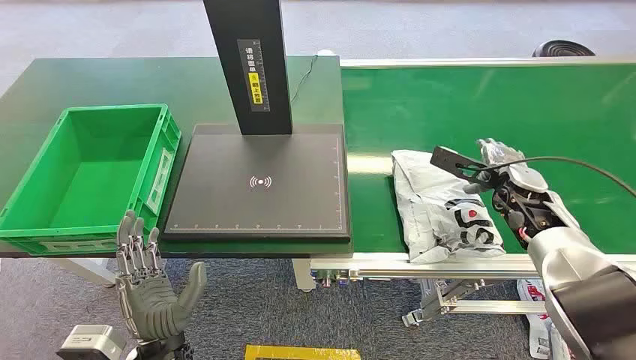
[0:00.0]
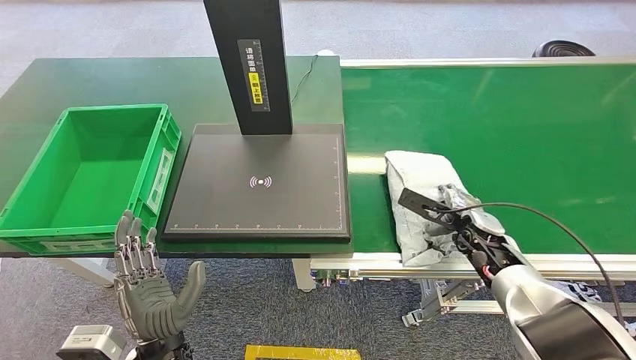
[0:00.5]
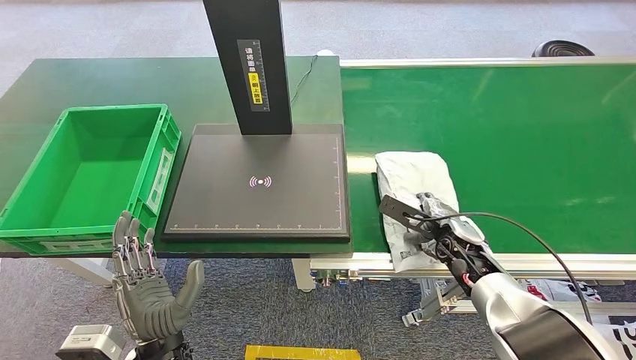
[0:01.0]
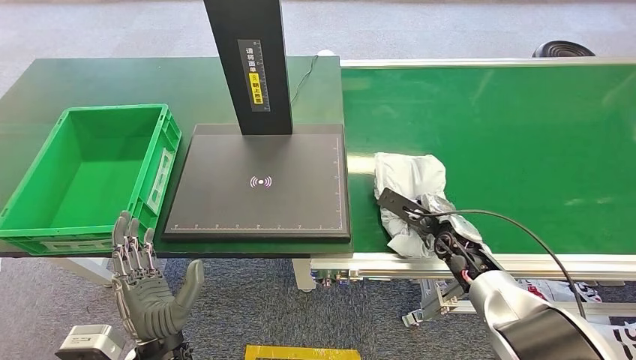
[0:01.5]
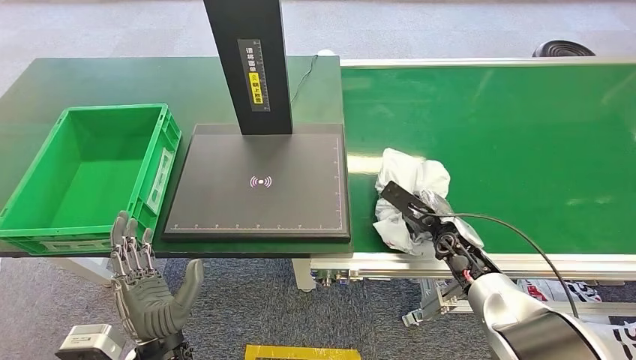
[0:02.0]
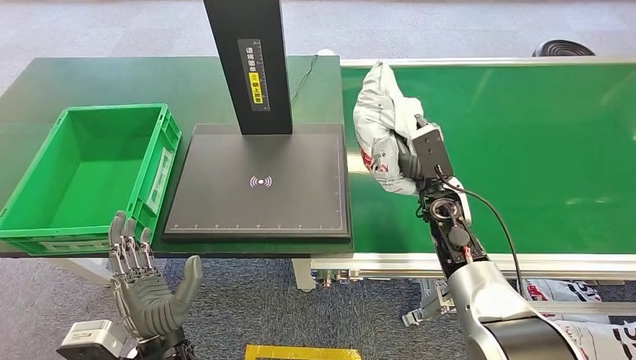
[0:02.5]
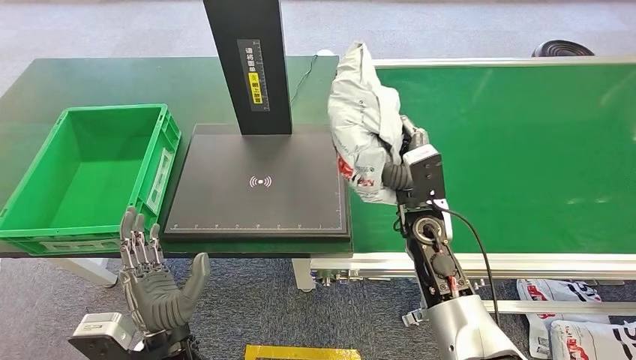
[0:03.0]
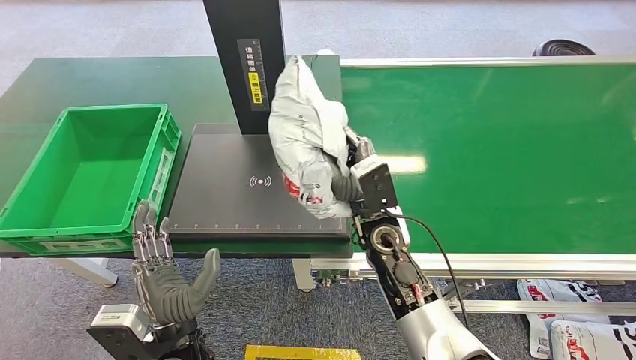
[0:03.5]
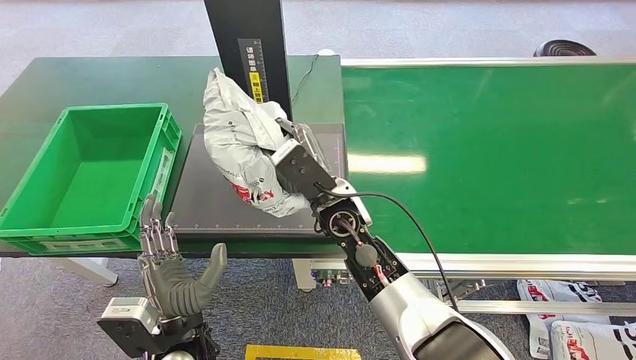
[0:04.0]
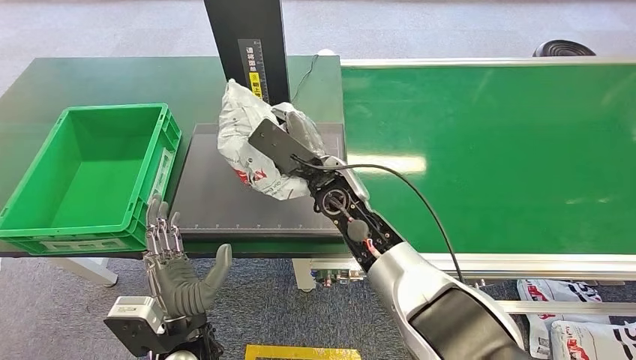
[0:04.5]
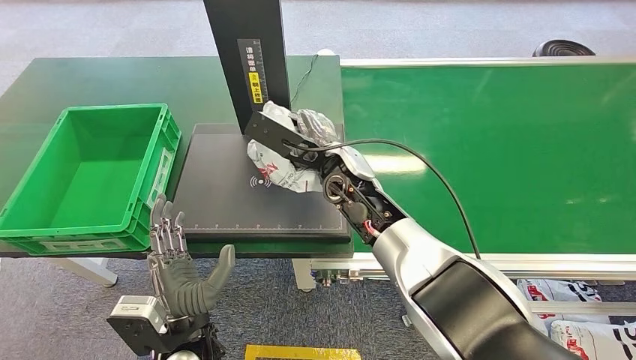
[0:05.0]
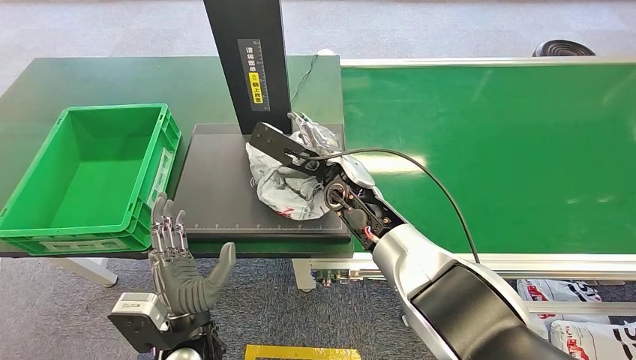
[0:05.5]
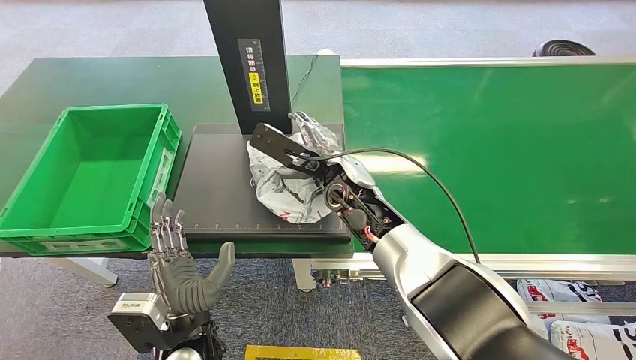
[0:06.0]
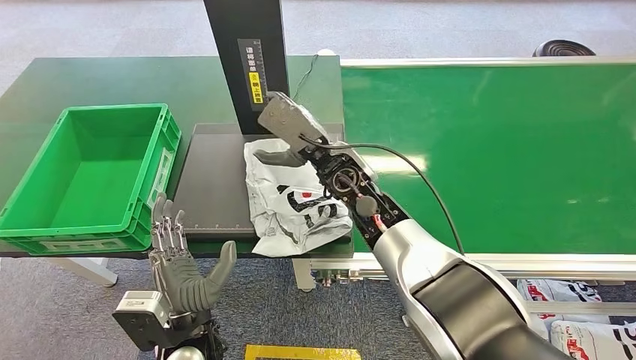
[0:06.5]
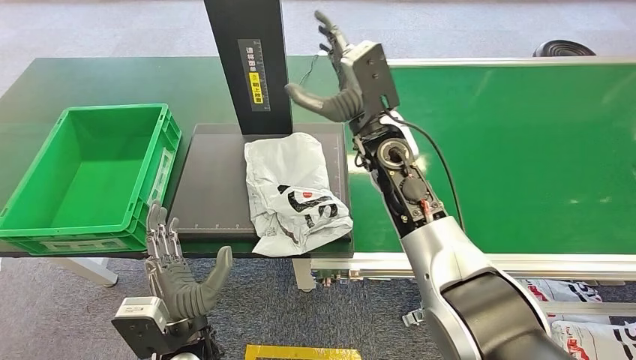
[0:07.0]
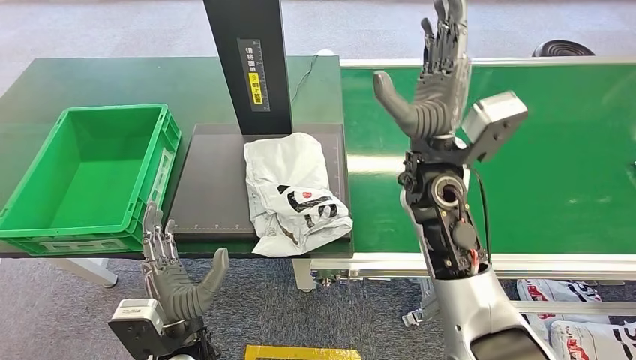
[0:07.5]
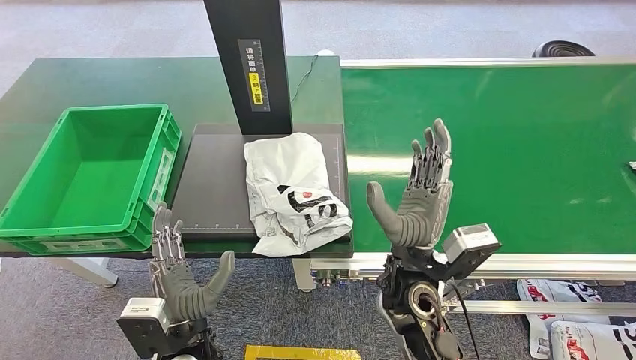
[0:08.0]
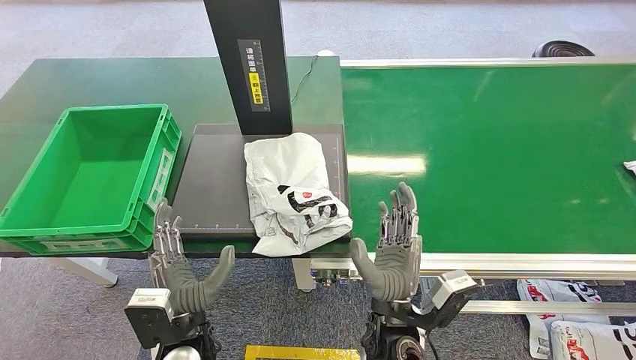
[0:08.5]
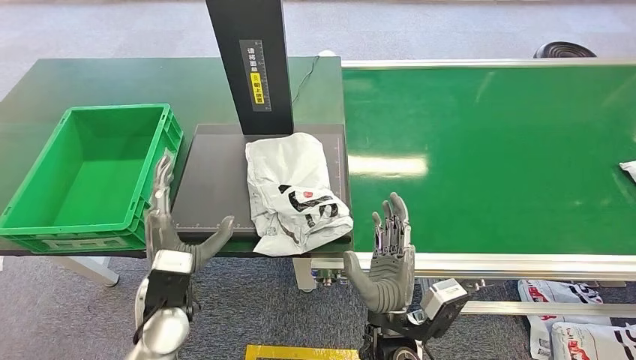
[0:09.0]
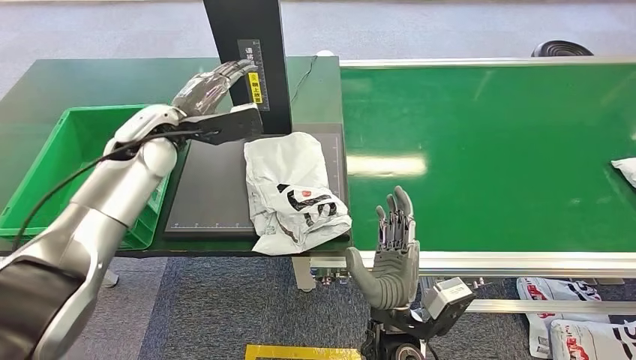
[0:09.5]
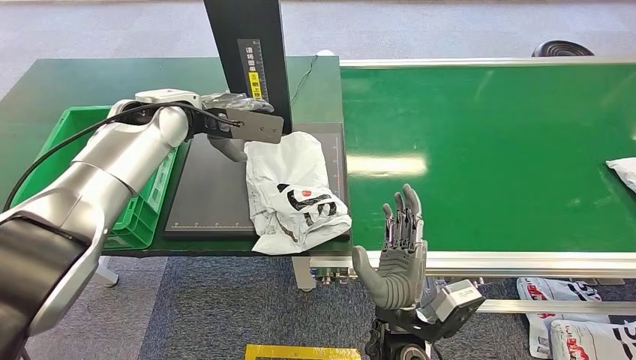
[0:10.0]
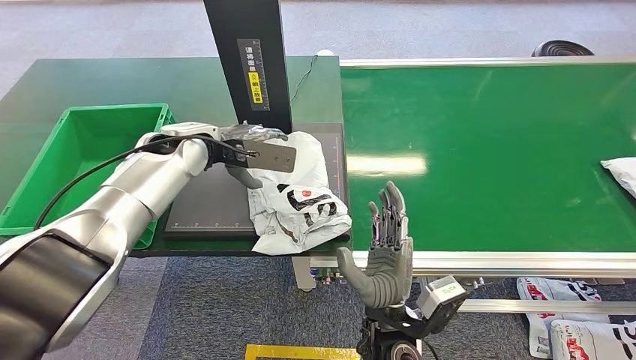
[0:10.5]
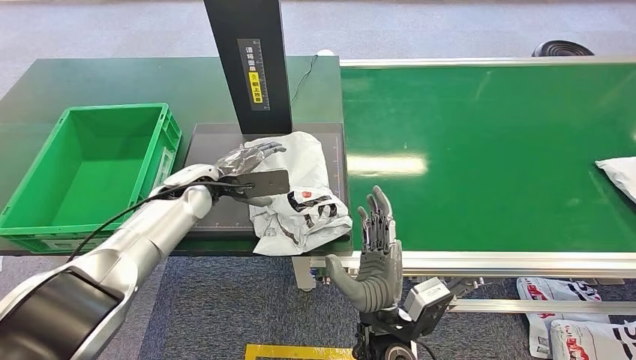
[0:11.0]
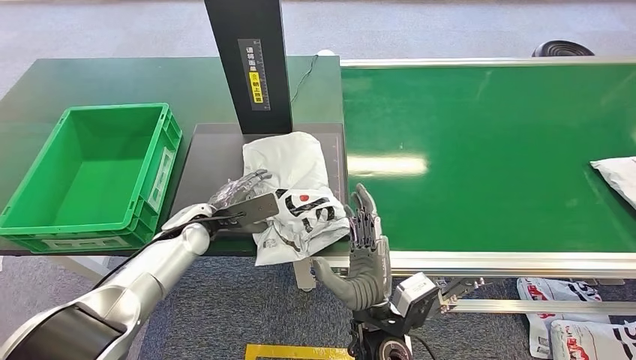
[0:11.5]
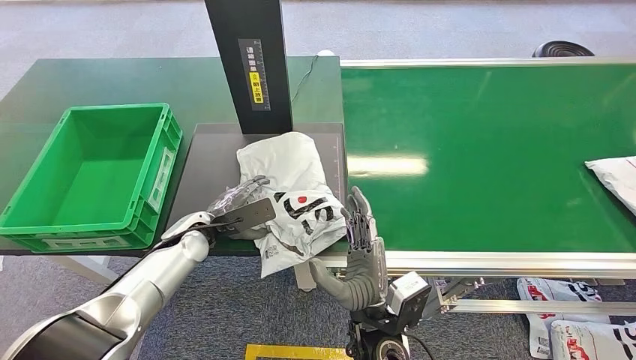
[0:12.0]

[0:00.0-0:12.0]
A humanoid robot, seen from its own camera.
Step, 0:00.0 to 0:02.5: Pick up the package from the conveyor belt.
Step, 0:03.0 to 0:06.5: Place the package onto the inbound machine.
0:04.0 to 0:06.0: The right hand moves about 5 cm.
0:06.0 to 0:08.0: The right hand travels backward by approximately 15 cm.

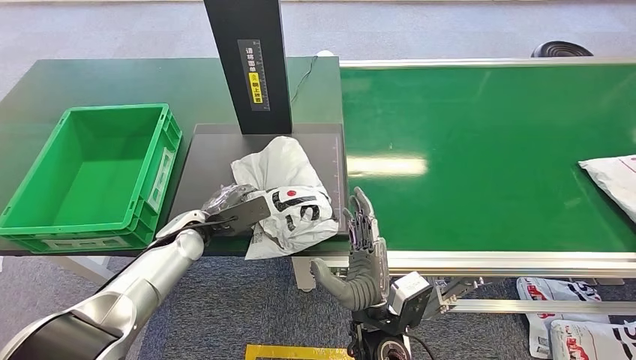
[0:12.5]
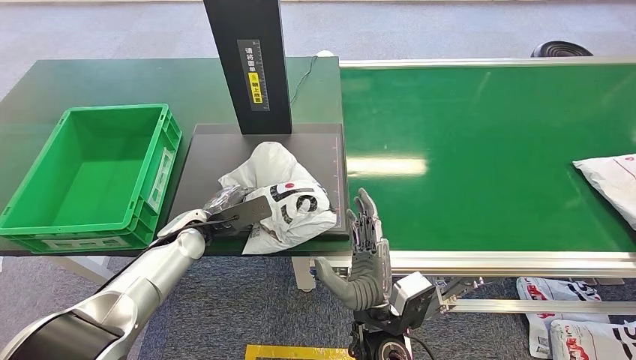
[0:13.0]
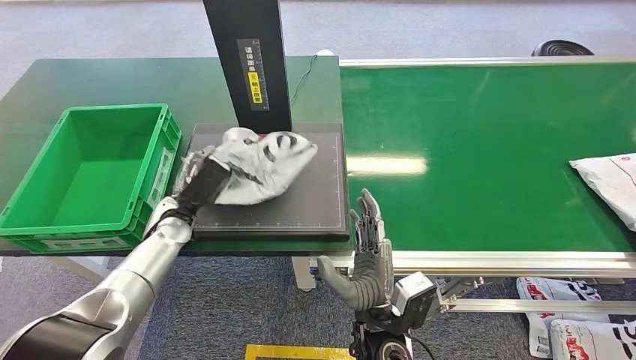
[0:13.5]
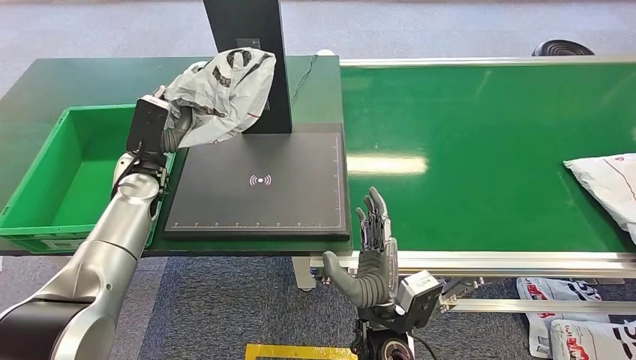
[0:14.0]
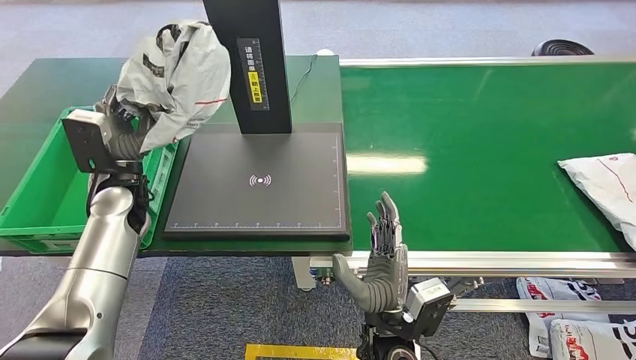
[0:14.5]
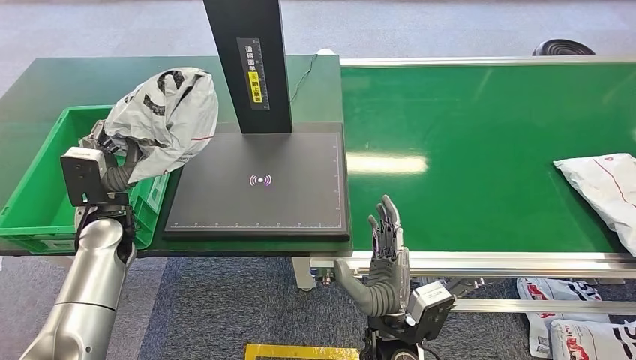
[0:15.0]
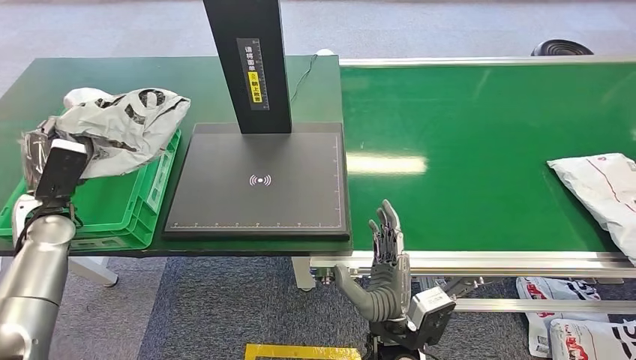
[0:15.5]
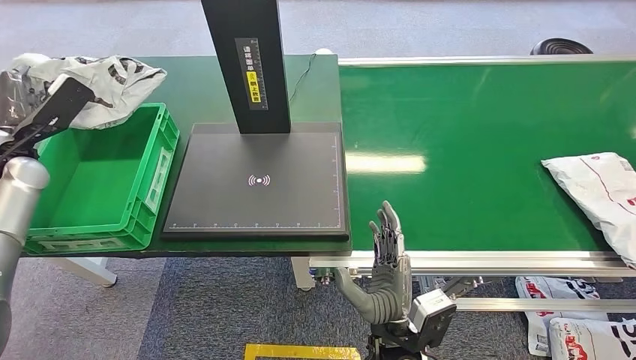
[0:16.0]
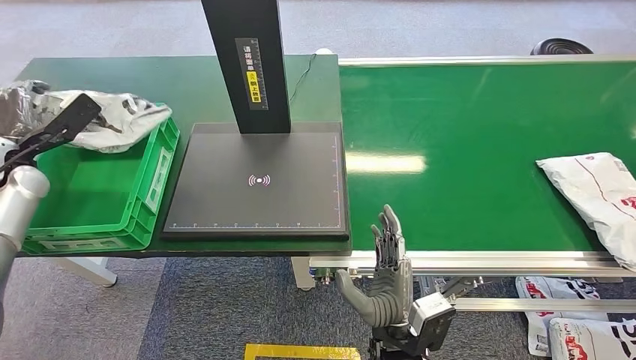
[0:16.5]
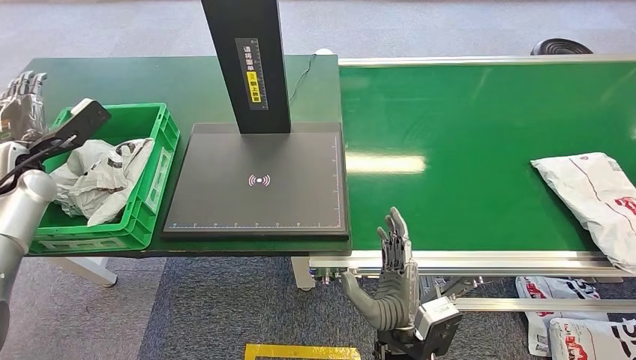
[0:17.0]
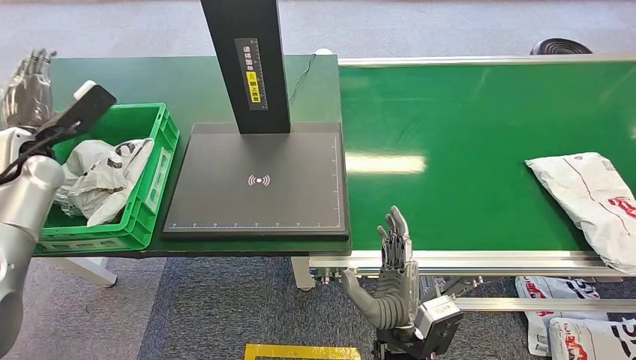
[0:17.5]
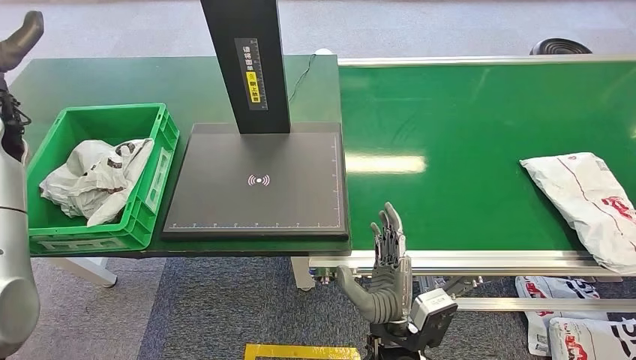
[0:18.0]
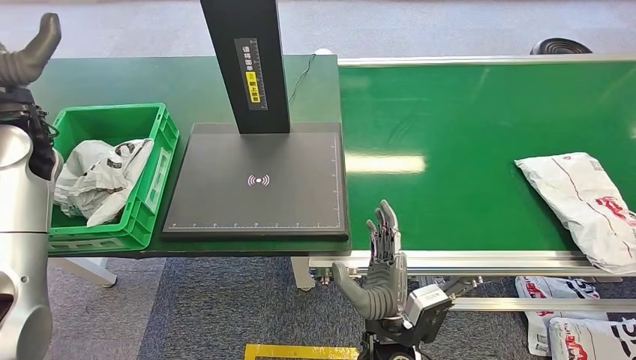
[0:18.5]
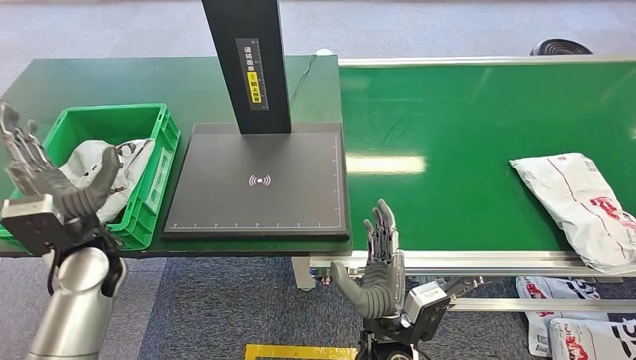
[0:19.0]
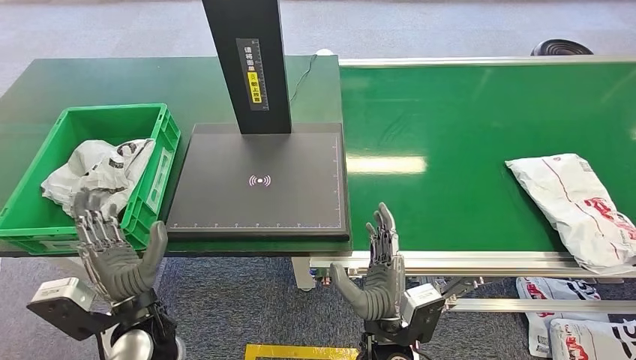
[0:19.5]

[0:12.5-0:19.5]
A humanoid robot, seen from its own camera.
Step, 0:14.0 to 0:19.5: Place the package into the parcel locker.
0:16.0 to 0:17.5: The hands make only small movements.
